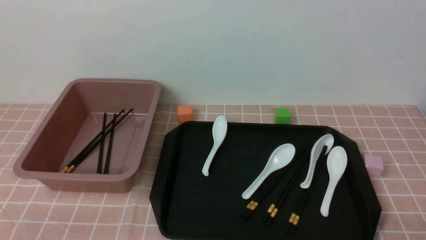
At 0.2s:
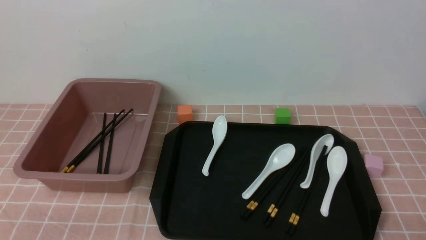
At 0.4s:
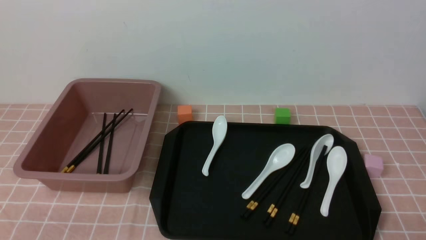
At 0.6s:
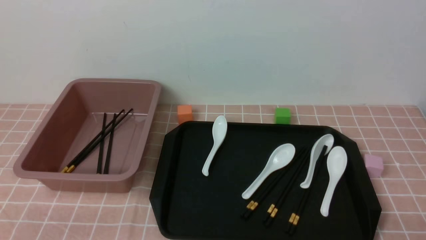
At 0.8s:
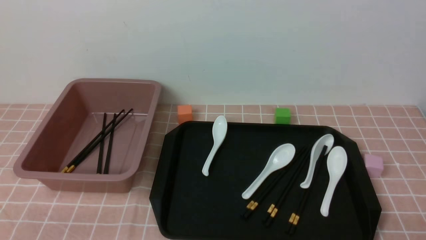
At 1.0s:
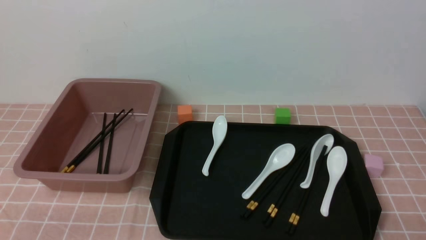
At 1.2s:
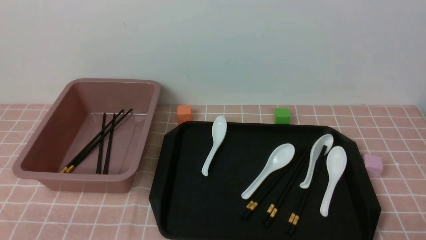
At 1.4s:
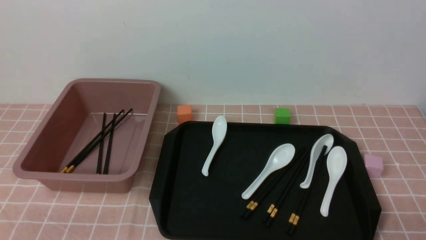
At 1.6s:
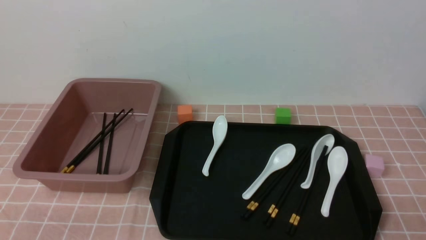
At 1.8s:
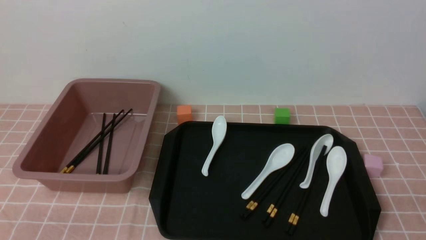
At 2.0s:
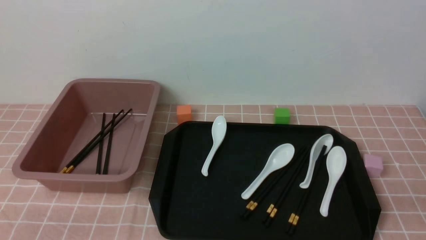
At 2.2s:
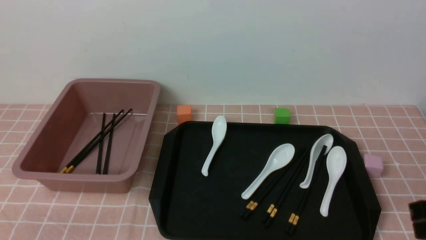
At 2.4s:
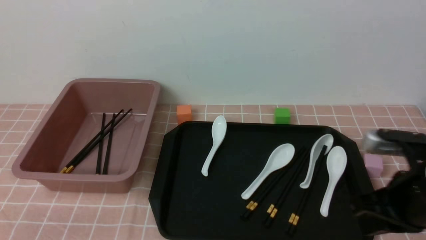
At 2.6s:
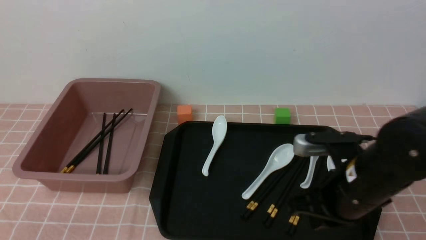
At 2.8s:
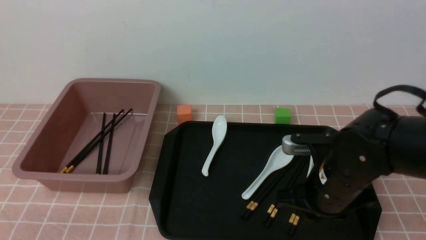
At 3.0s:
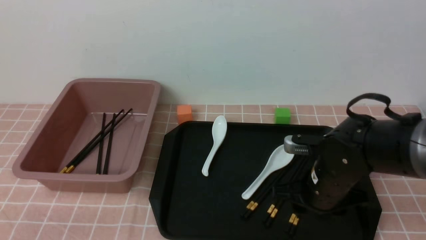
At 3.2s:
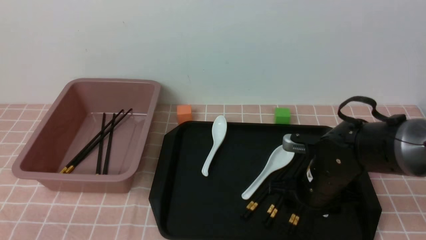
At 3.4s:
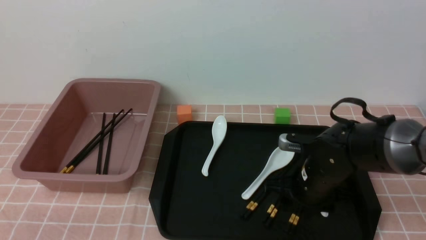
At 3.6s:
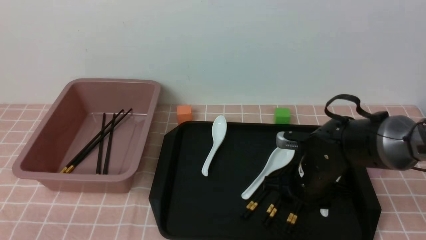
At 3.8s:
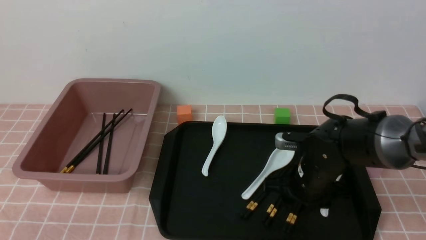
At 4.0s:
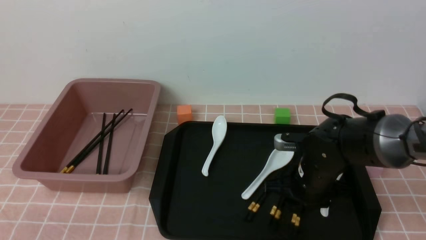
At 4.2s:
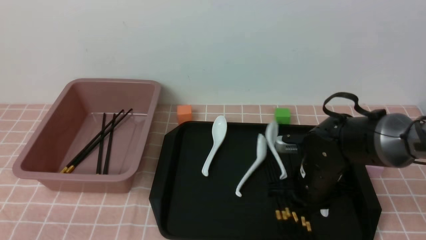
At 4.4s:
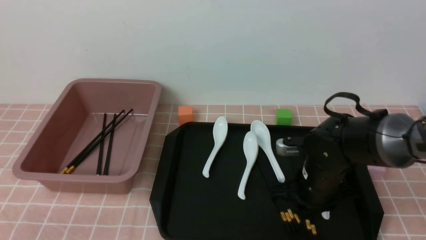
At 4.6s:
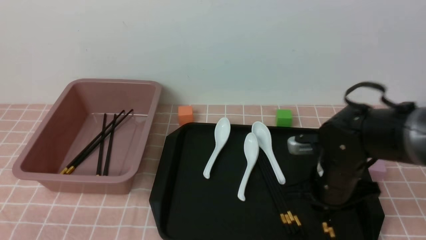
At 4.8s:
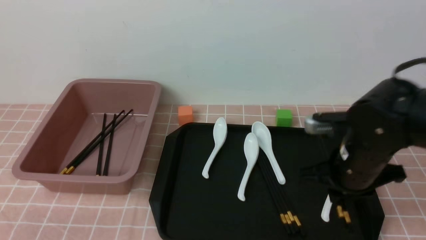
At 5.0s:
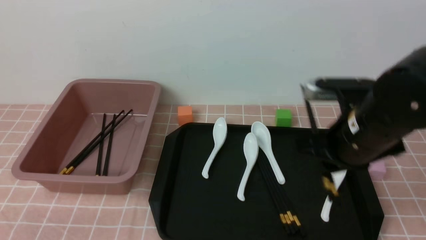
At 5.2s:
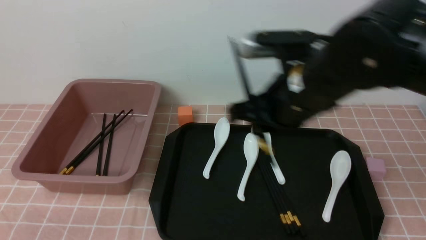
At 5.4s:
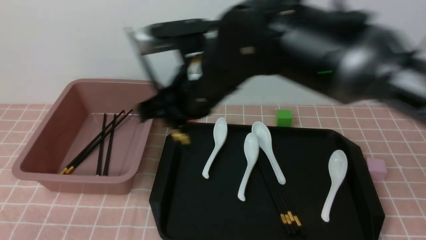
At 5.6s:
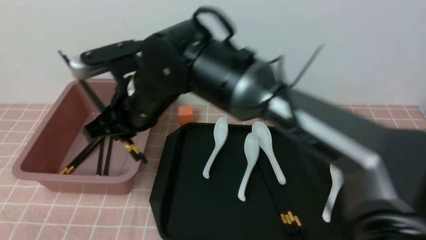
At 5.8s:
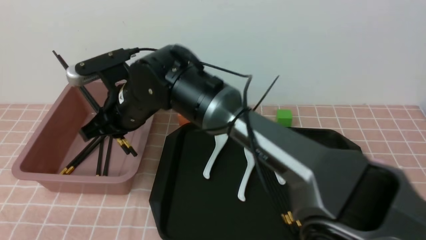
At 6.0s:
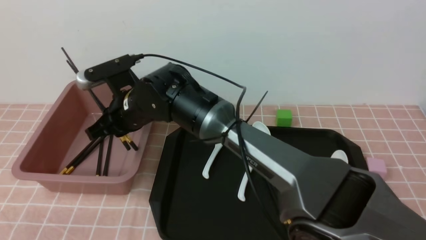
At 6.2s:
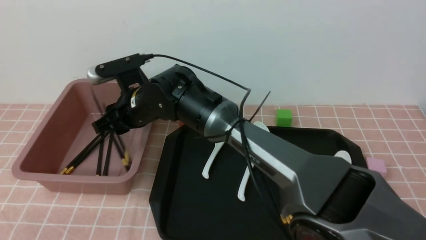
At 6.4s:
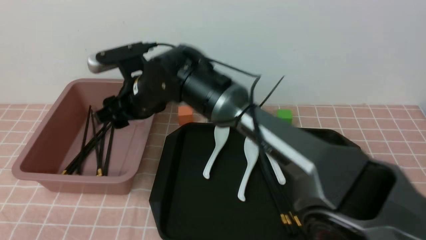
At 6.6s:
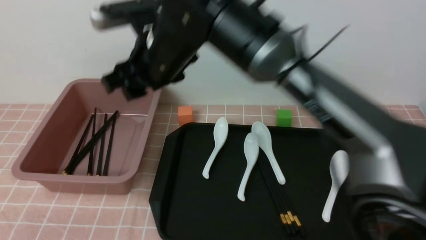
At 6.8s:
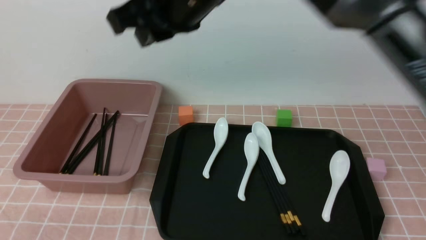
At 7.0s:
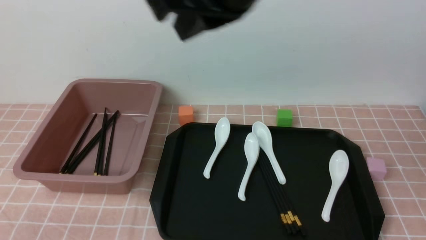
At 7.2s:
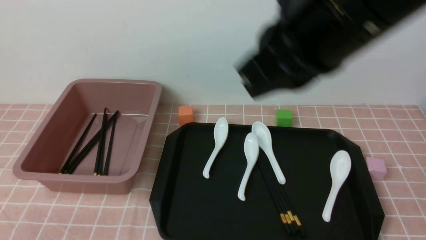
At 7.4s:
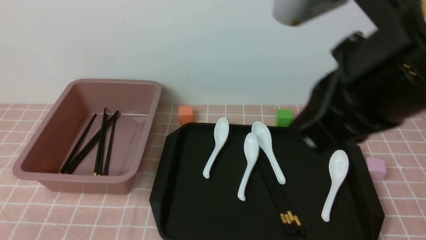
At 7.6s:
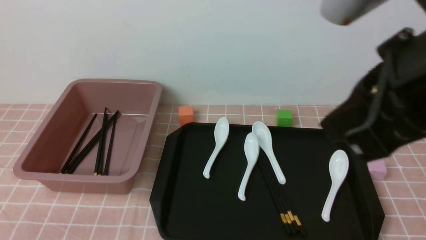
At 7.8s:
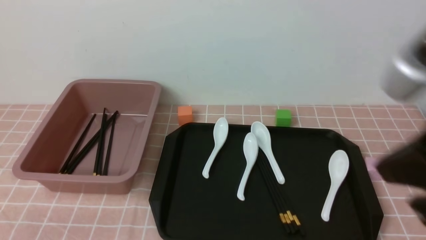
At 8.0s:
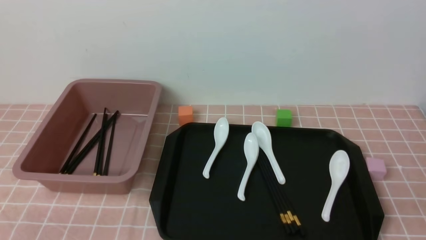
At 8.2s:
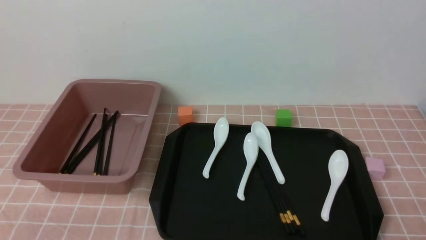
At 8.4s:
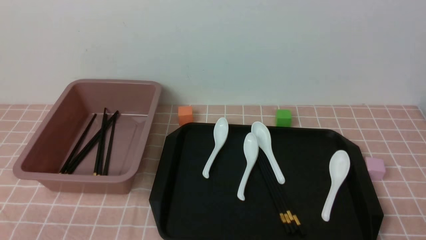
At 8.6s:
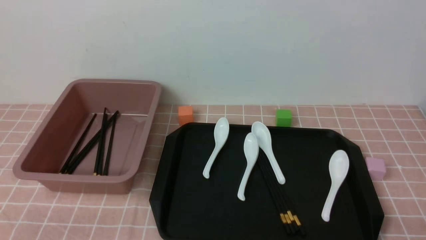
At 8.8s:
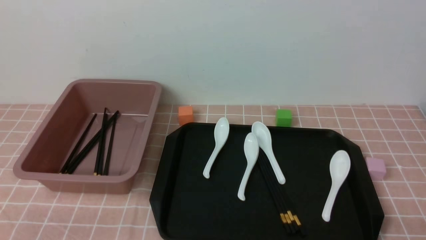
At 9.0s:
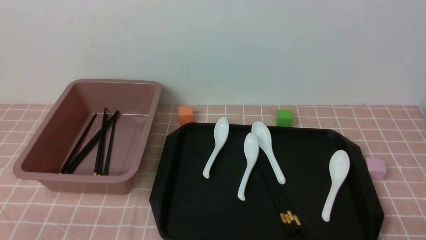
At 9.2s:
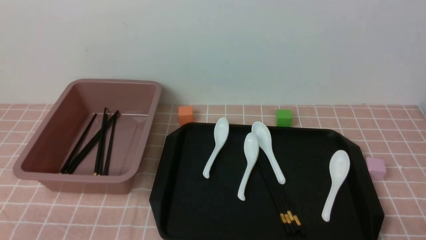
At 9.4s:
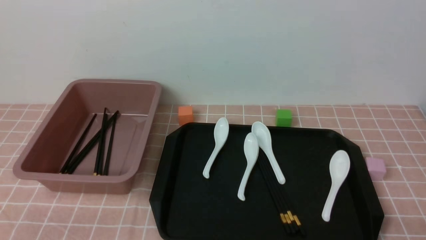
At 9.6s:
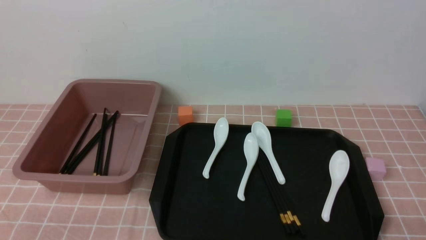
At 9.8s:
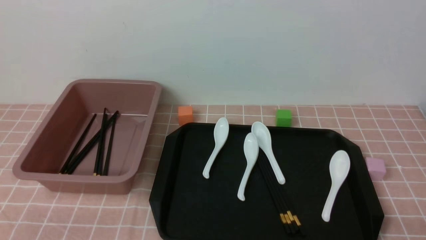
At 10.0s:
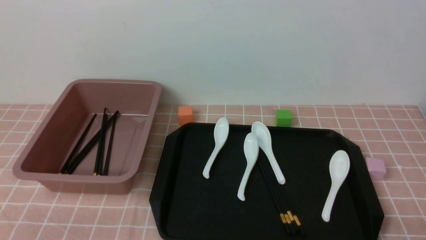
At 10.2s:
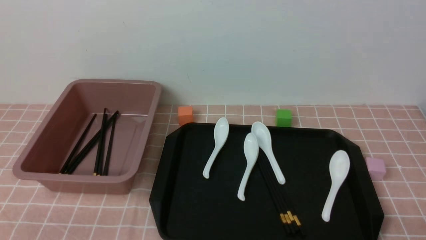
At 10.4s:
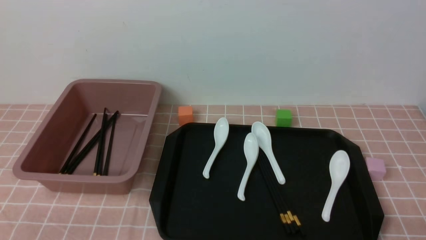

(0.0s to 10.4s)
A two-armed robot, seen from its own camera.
Step, 0.0s - 4.8s: use the right arm to grab a pair of chopsticks.
Step, 5.0s - 6.4s: use the right arm to put the chopsticks into the lunch box.
1.4s - 3.0s: The right gripper heads forward and to the left, covering roughly 25 cm, and closes, then opens again.
3.0s - 4.4s: The right gripper closes its fingers.
4.4s - 6.0s: The right gripper heads to the left, covering approximately 25 cm.
6.0s - 7.4s: The right gripper shifts roughly 40 cm to the right, backward and upward, and closes its fingers.
7.4s - 9.0s: The right gripper shifts about 35 cm downward, to the right and backward.
9.0s - 10.4s: Neither gripper changes place.
